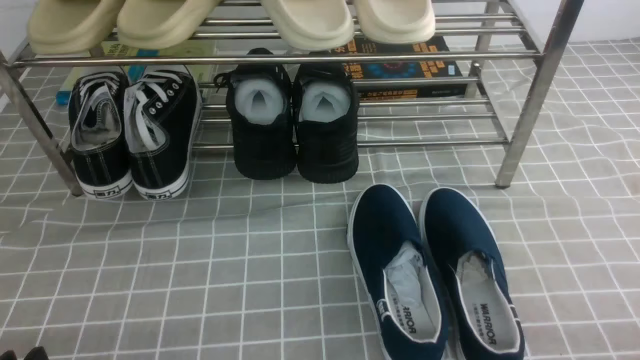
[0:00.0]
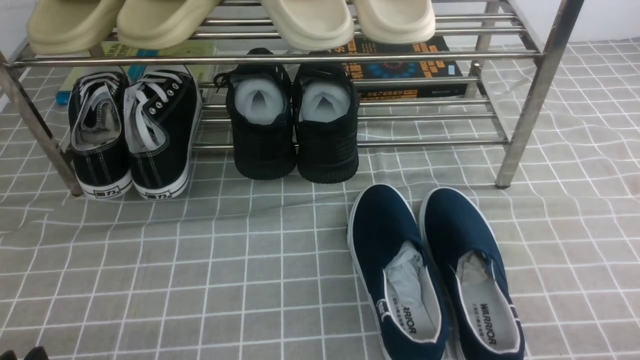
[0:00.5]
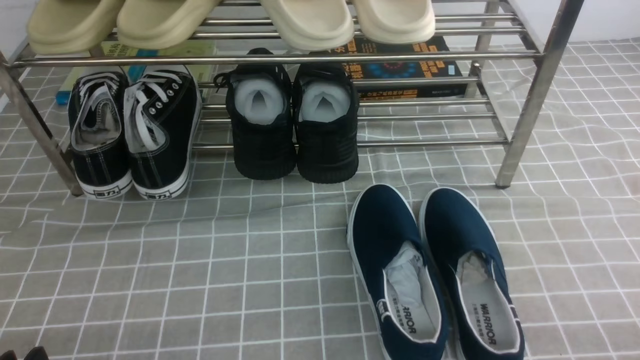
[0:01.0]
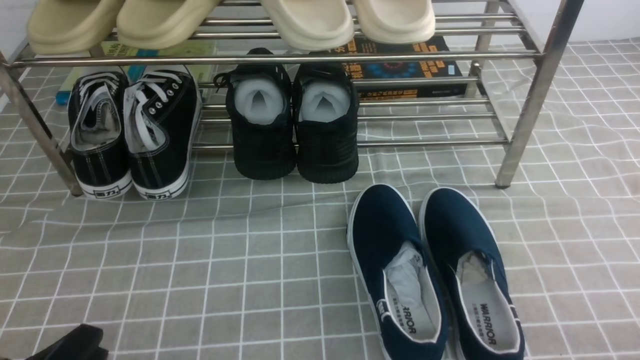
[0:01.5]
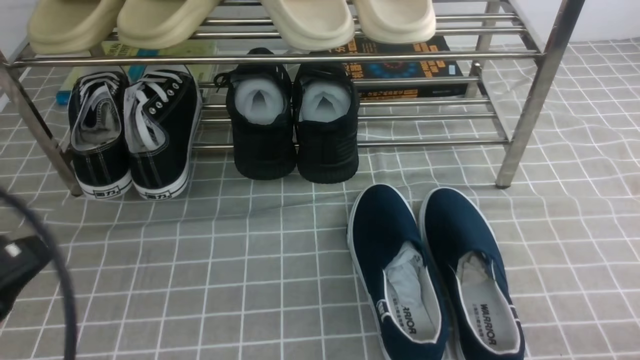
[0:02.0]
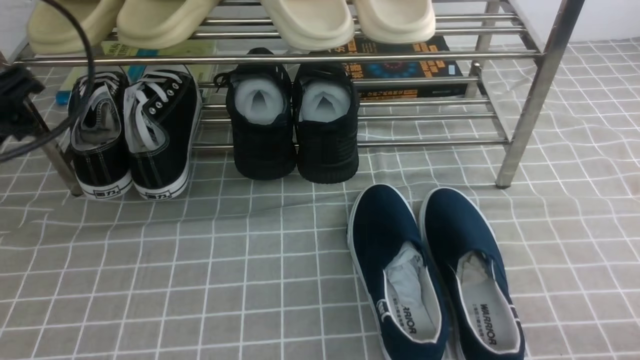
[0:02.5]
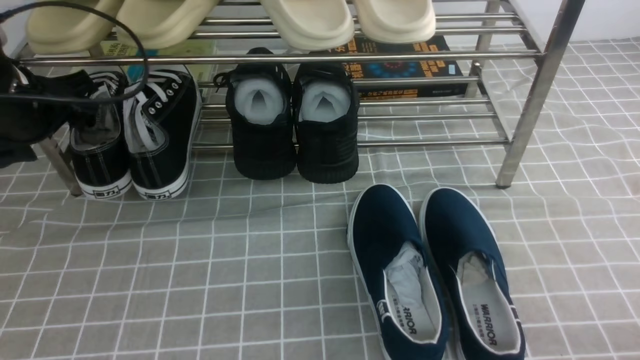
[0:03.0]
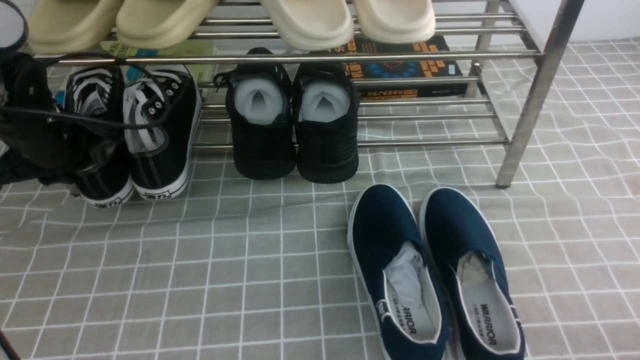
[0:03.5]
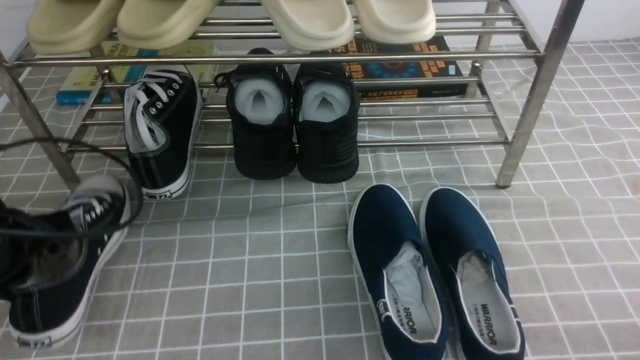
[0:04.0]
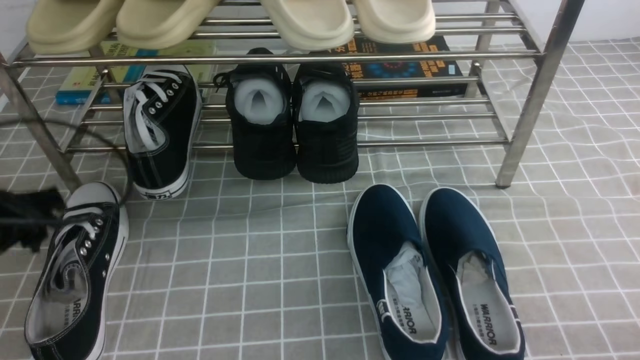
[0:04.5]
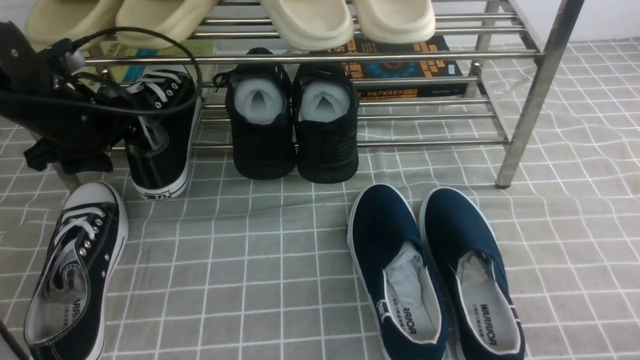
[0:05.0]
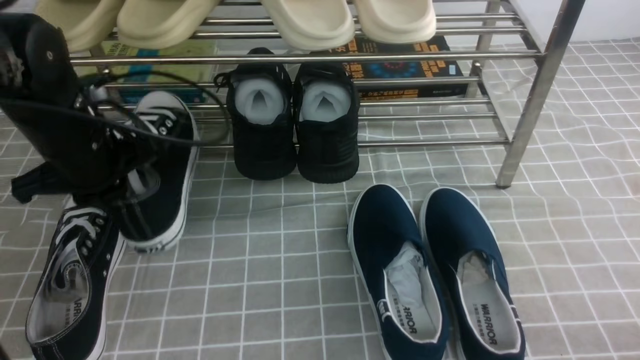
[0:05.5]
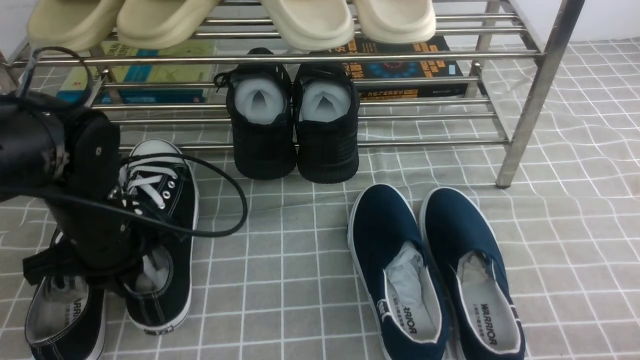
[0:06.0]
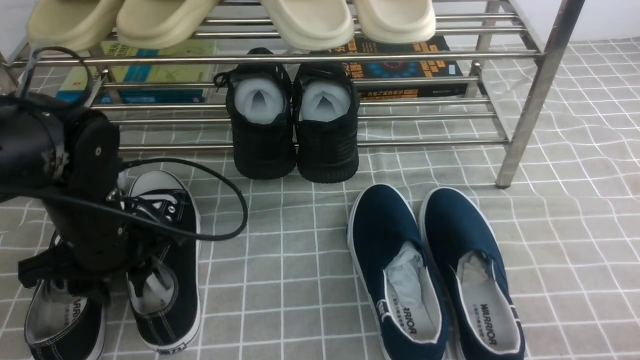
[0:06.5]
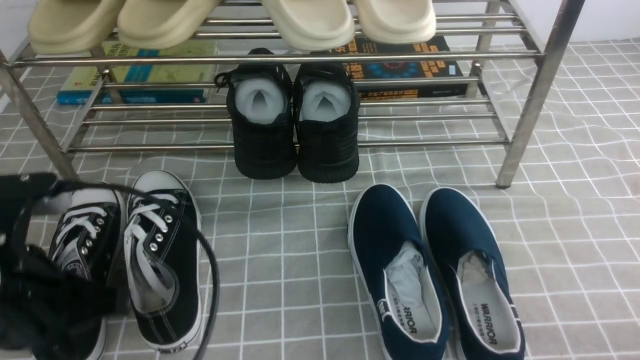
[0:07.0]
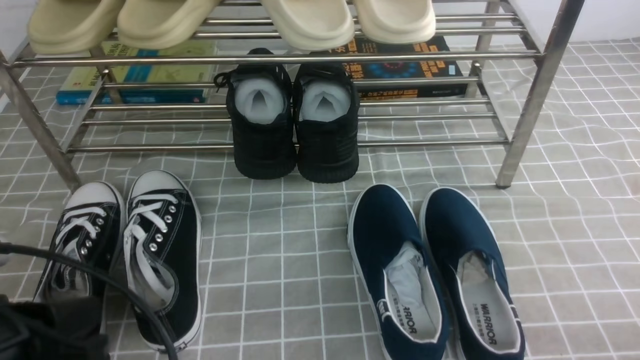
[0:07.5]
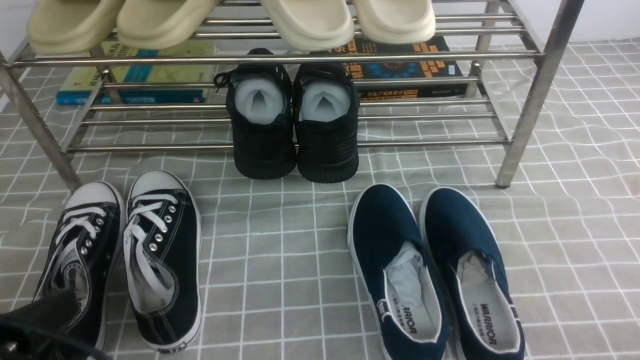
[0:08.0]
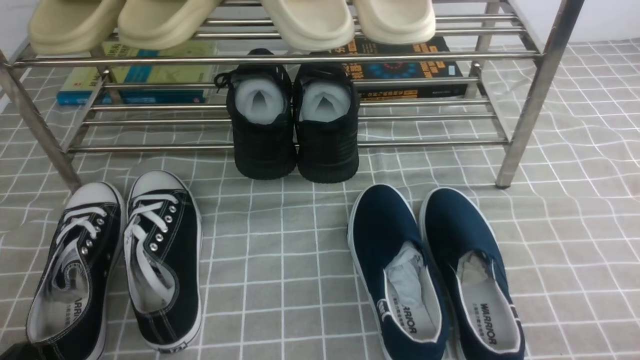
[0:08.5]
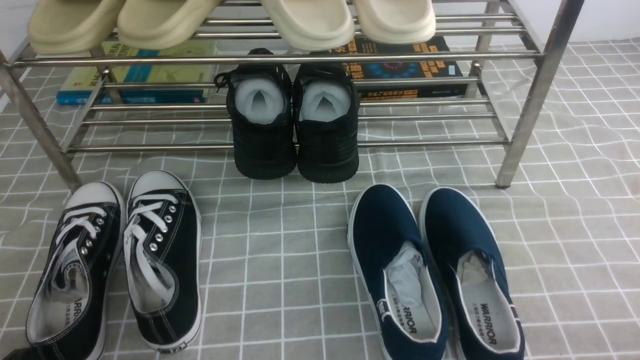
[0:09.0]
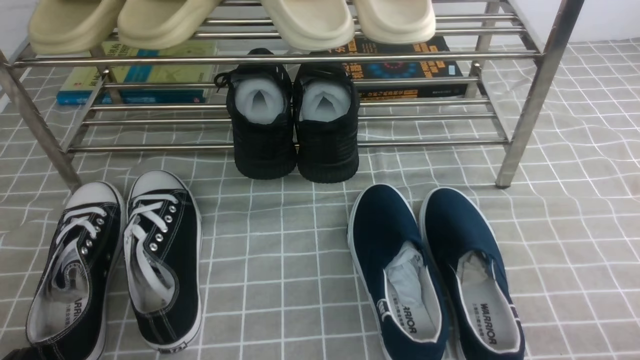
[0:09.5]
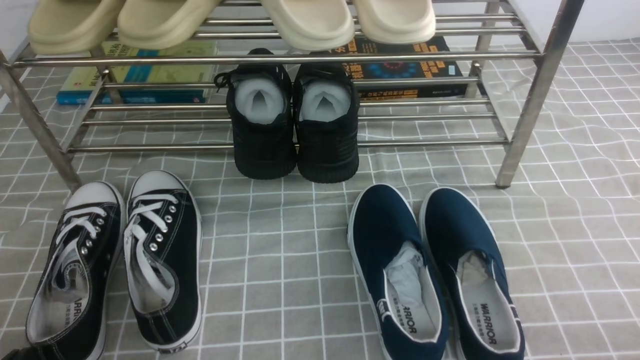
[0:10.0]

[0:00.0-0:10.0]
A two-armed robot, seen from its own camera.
Step, 0:00.0 to 0:03.0: use the left arm to clamp a shoe on the left side of the shoe rack.
Step, 0:03.5 to 0:04.0: Use your left arm to remove the clamped shoe from the shoe rack and put it down.
Step, 0:04.5 to 0:05.0: use the left arm to clamp a shoe on the left side of the shoe rack.
Step, 0:05.5 to 0:06.5: Use your left arm to remove the clamped shoe from the shoe rack and put it down.
0:00.0 to 0:02.0: The left gripper shifts some 15 cm upward.
0:02.0 to 0:04.0: The left gripper travels forward and downward by about 15 cm, and opens, then closes again.
0:04.0 to 0:06.0: The left gripper moves to the right, about 10 cm, reaches approximately 10 cm forward, then returns, and opens and closes again.
0:06.0 to 0:08.0: The left gripper heads backward, covering roughly 20 cm, and opens, then closes once more.
0:08.0 to 0:10.0: The left gripper travels downward by about 5 cm.
